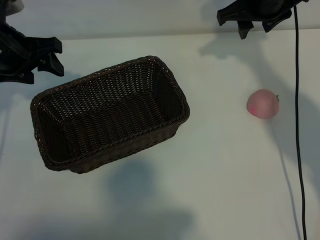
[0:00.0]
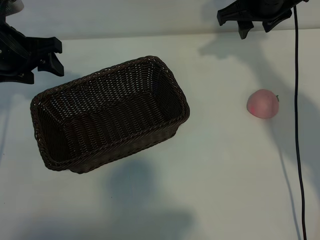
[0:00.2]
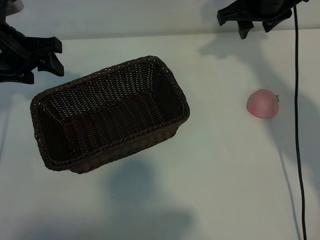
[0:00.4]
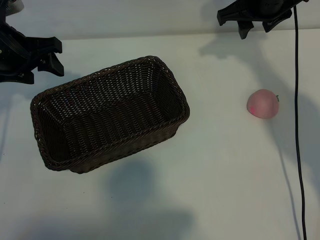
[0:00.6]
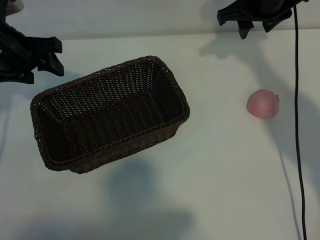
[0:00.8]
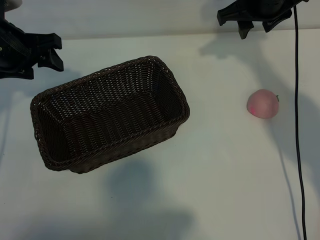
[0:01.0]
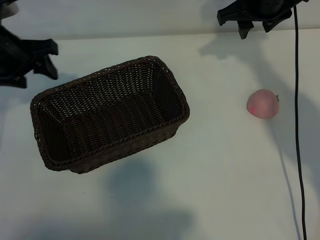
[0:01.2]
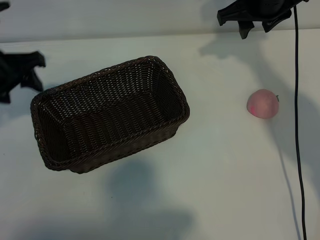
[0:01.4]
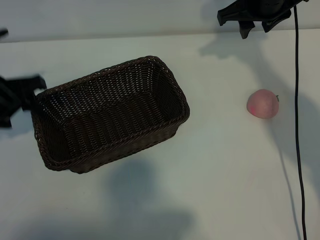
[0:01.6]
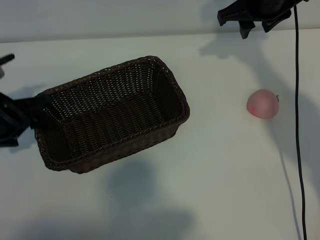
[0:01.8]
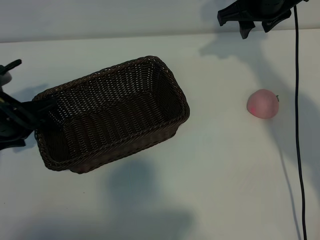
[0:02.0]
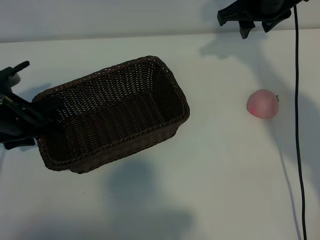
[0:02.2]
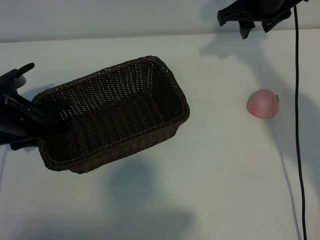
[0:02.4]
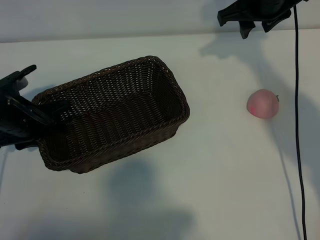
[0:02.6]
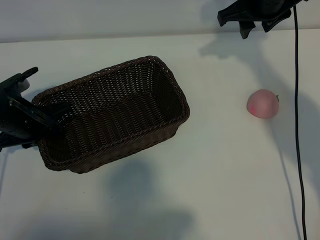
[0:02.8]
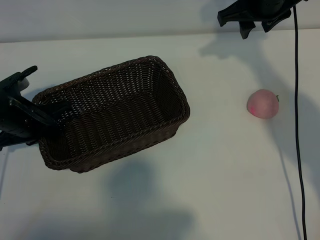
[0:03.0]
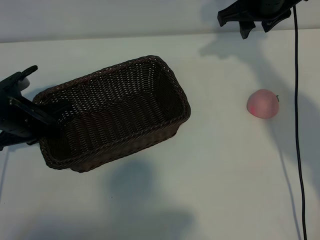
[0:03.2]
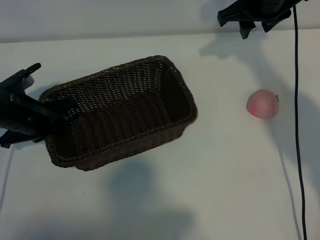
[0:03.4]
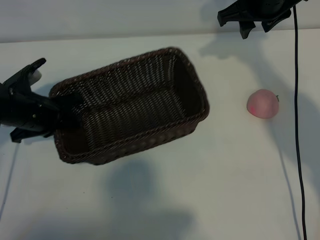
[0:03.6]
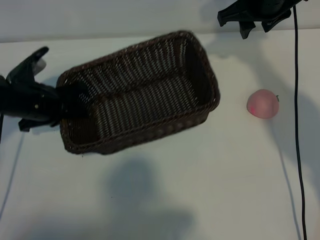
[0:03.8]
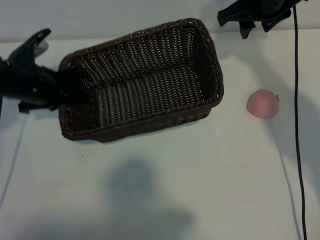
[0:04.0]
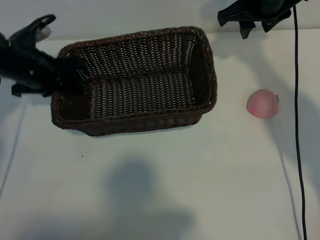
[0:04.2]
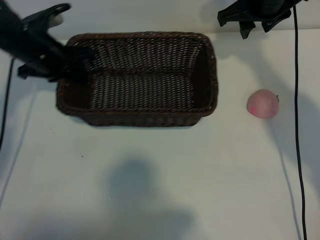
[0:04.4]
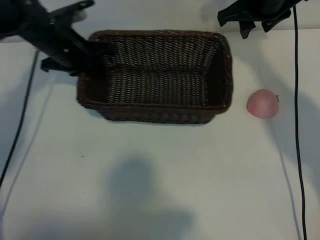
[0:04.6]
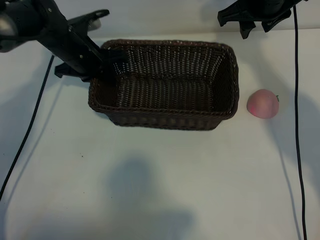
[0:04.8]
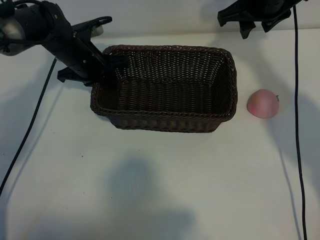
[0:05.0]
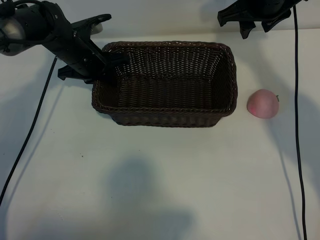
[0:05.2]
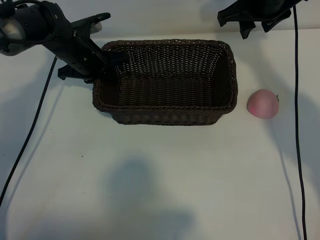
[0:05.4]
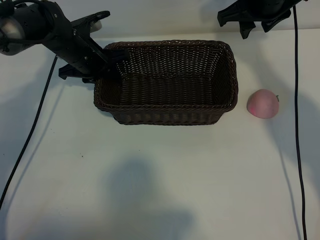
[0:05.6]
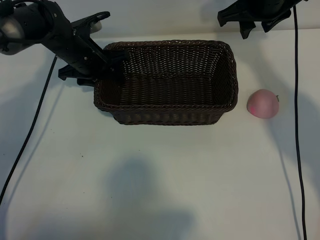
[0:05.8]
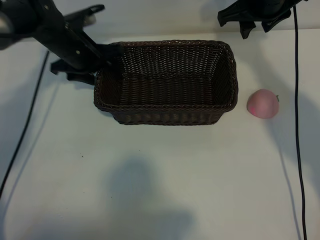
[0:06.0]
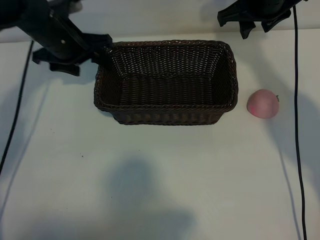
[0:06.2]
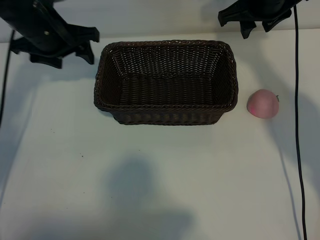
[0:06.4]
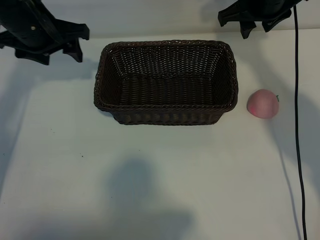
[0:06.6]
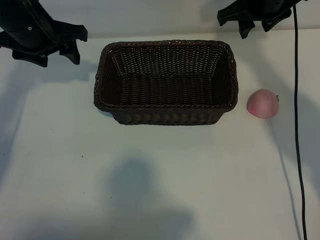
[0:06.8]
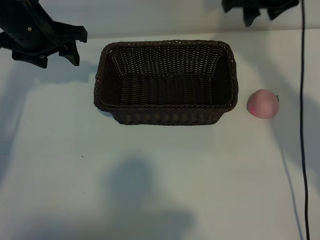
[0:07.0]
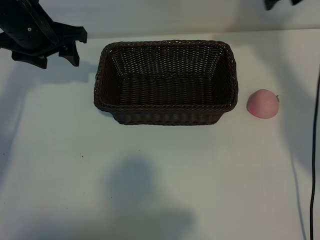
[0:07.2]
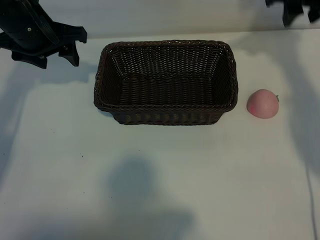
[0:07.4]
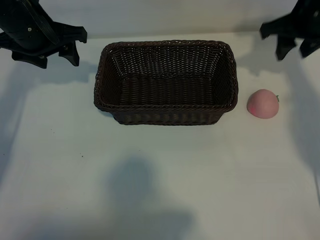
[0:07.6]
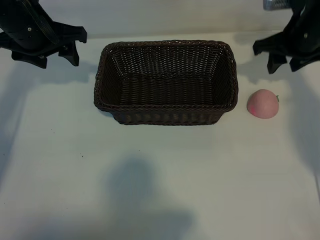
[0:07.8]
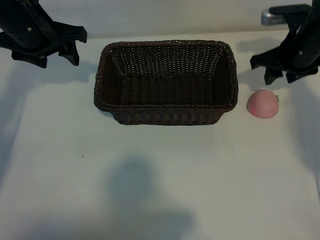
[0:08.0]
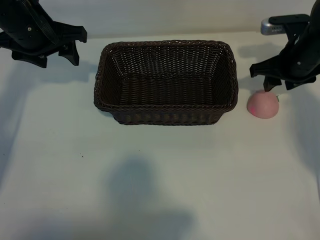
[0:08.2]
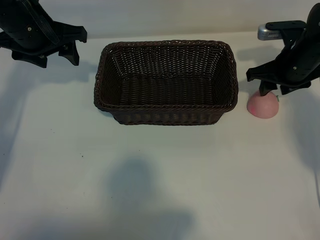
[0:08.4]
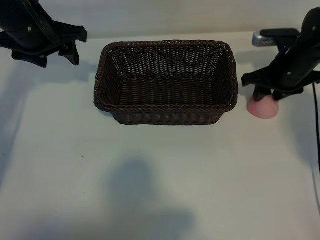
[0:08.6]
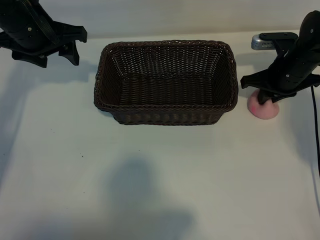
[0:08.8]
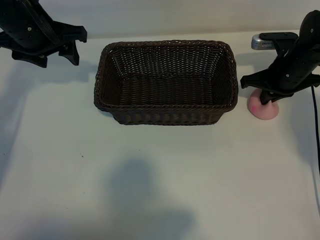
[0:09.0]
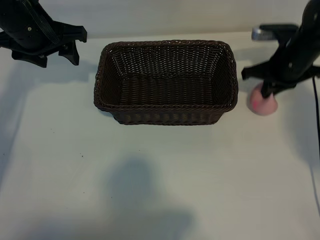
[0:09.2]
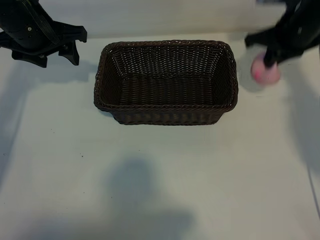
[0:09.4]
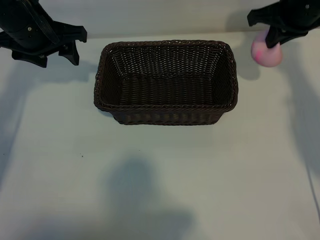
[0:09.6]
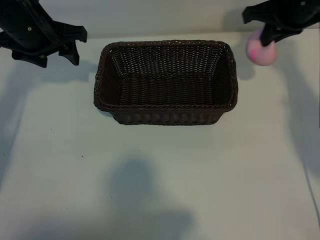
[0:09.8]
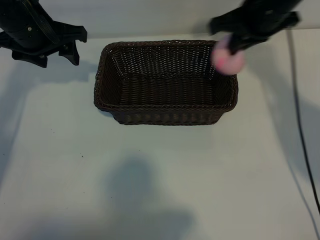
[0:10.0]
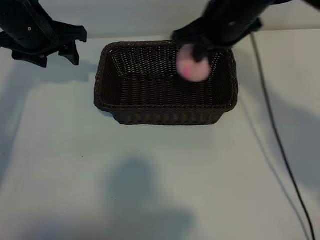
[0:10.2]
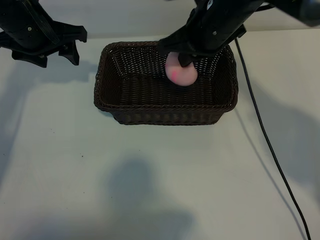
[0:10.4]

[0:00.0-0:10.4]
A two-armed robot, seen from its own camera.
Task of the whole recording: pick up the peach and put it into the basket.
Step, 0:01.0 to 0:03.0: Grasp the basket with left gripper.
Step, 0:03.2 to 0:05.8: Place the basket in the center of view with left gripper.
Step, 0:06.0 to 0:09.0: Grasp the peach with right gripper.
